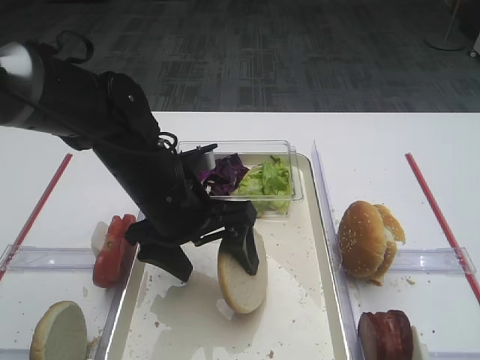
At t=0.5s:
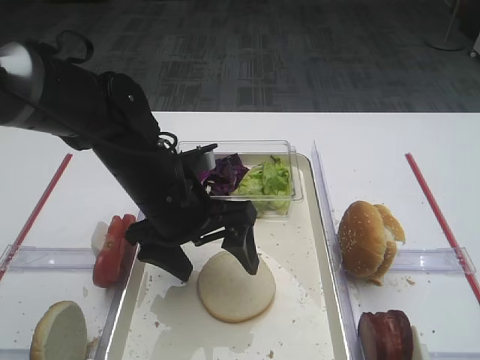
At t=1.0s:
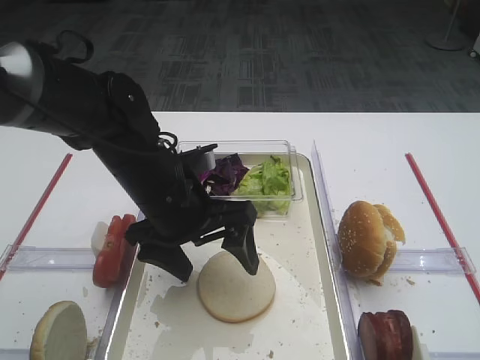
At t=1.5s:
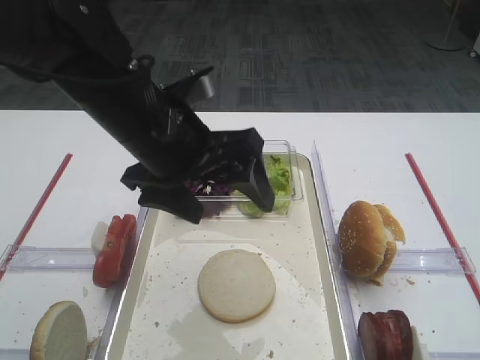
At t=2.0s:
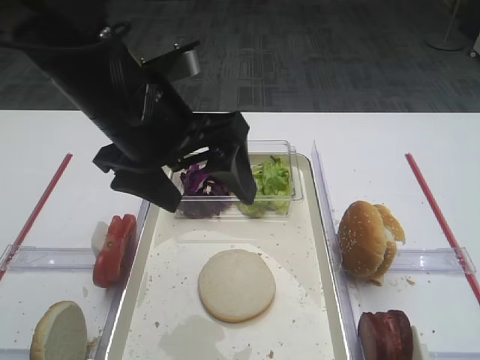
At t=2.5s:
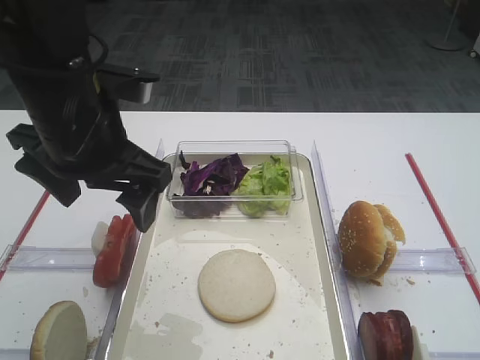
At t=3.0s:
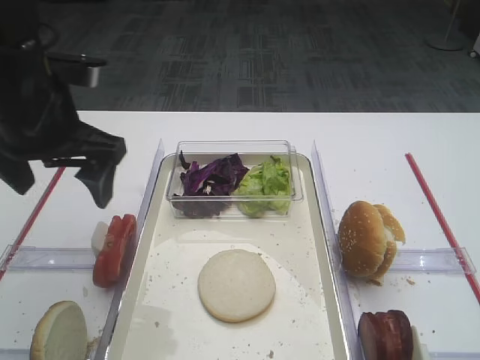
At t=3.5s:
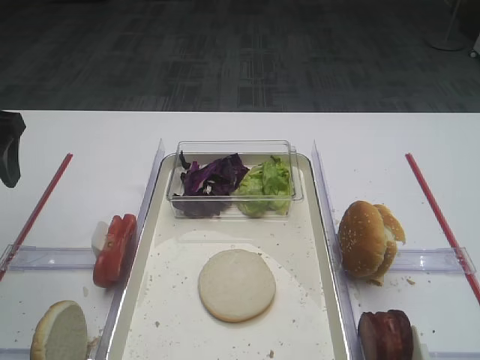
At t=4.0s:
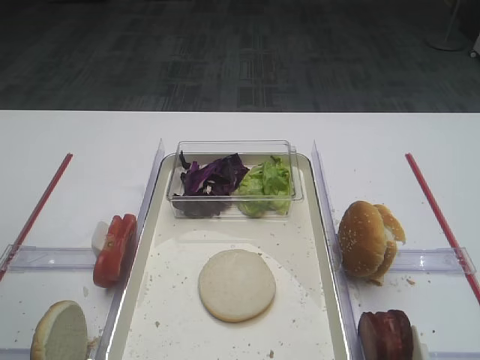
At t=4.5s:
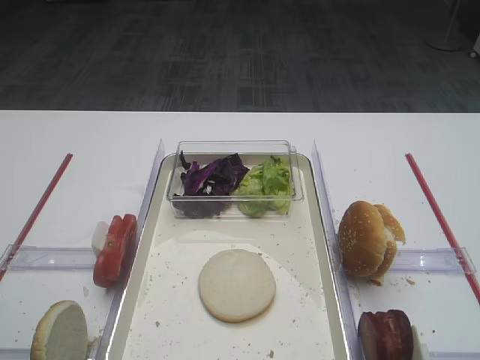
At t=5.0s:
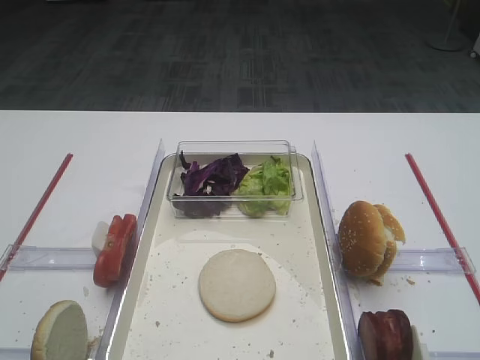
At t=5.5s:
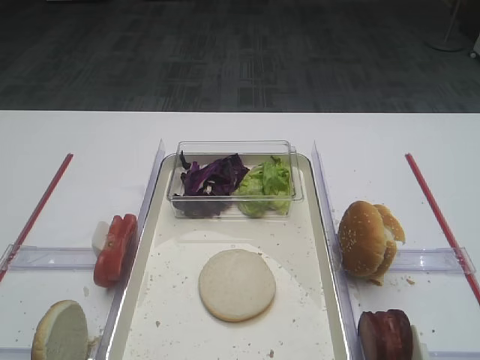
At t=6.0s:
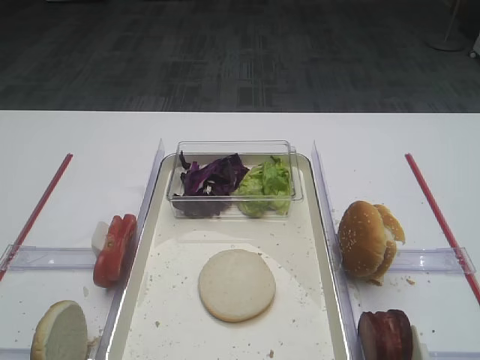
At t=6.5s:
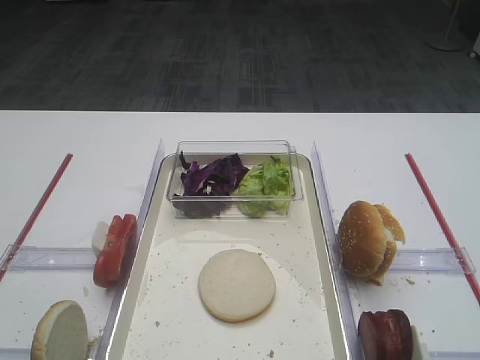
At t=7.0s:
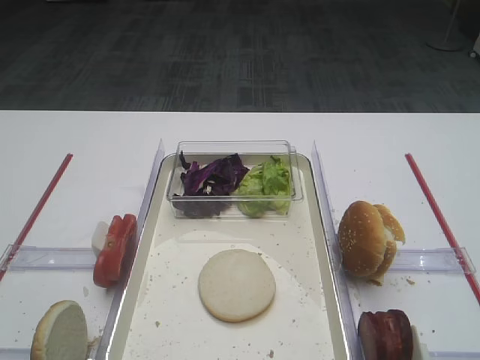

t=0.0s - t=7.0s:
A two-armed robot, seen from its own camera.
t=0.0s - t=2.0s: The left gripper is displaced upward by roughly 10 cm.
t=2.0s - t=3.5s: The left gripper moves to the left, roughly 20 cm.
t=3.5s - t=5.0s: The left gripper is displaced backward by some 25 cm.

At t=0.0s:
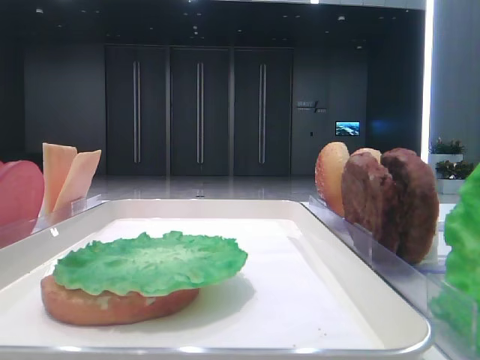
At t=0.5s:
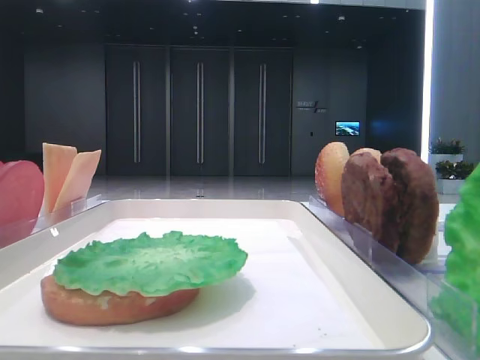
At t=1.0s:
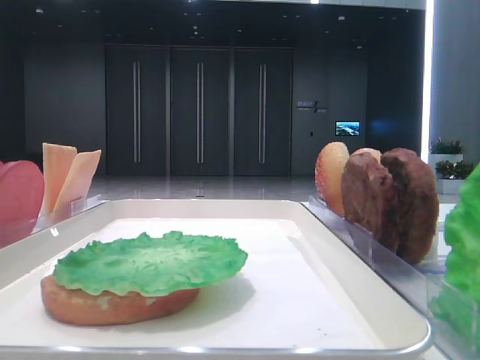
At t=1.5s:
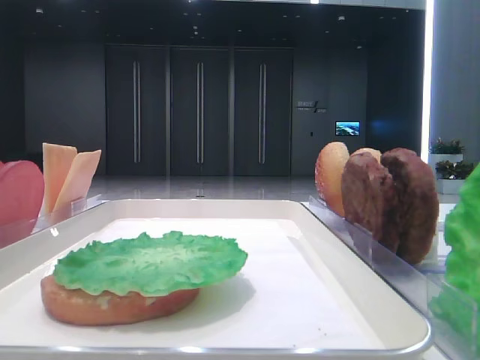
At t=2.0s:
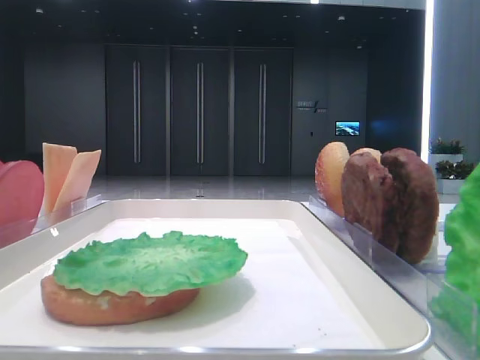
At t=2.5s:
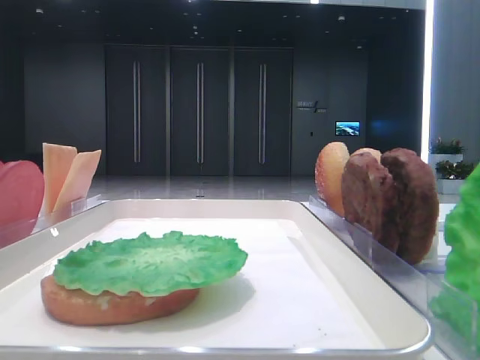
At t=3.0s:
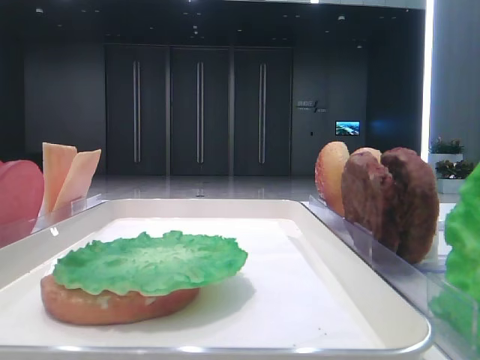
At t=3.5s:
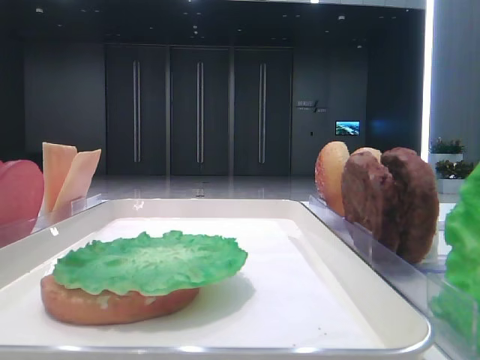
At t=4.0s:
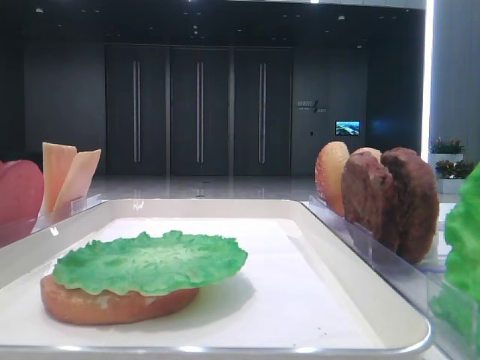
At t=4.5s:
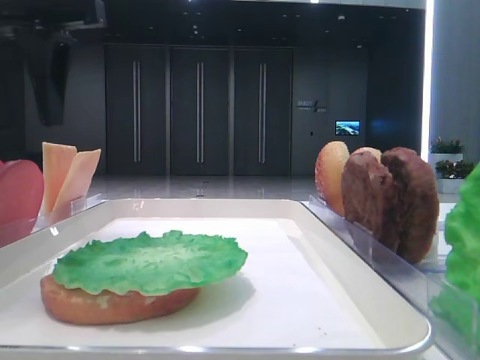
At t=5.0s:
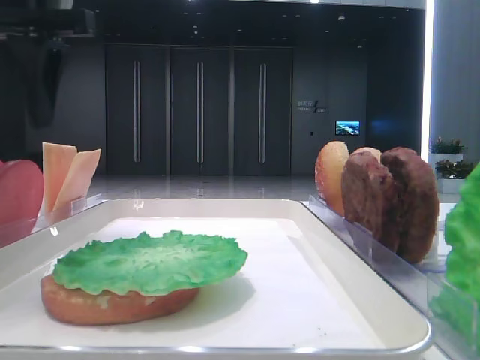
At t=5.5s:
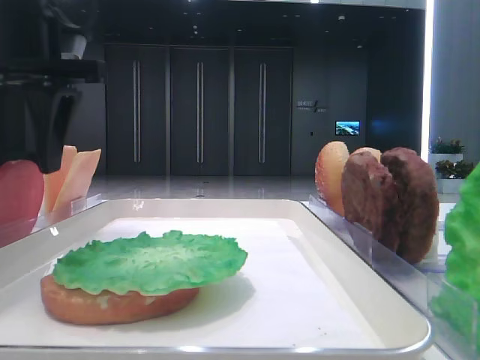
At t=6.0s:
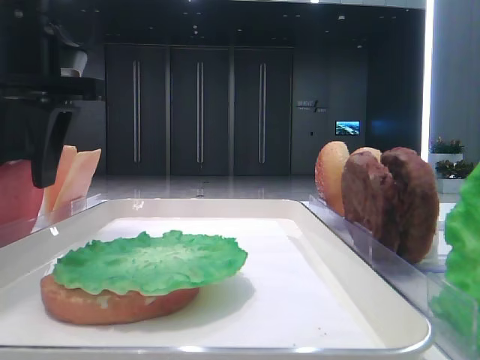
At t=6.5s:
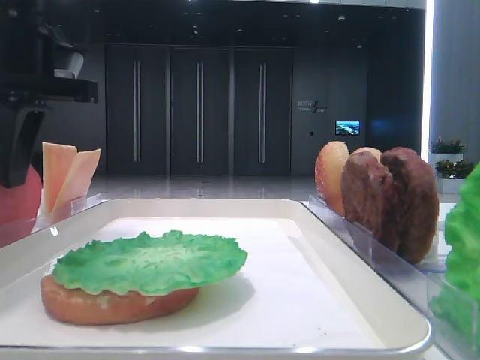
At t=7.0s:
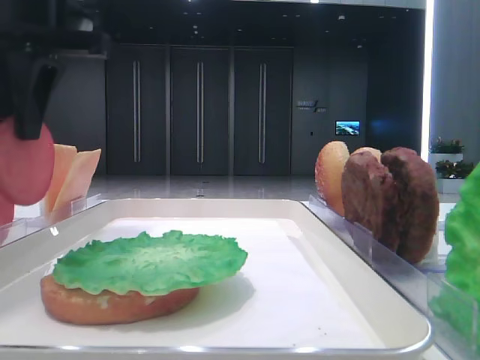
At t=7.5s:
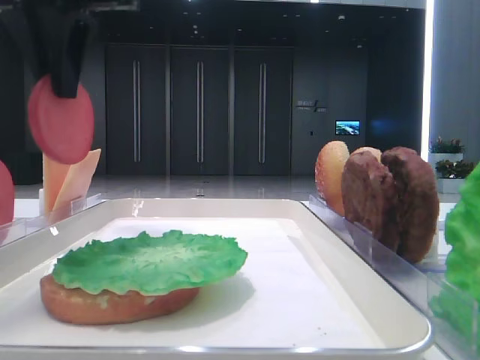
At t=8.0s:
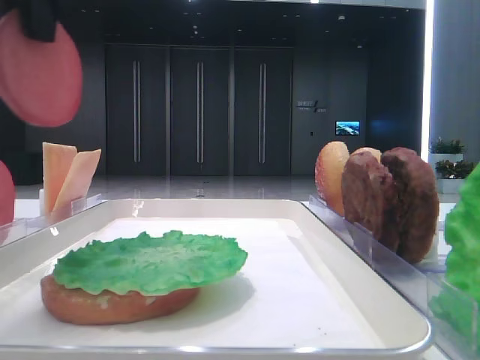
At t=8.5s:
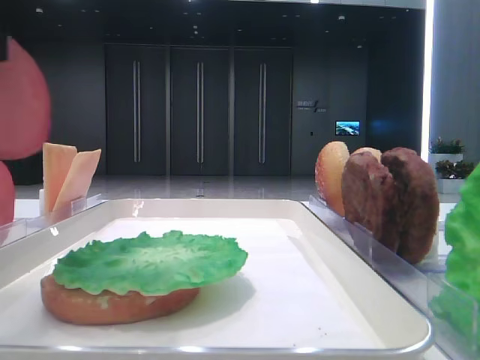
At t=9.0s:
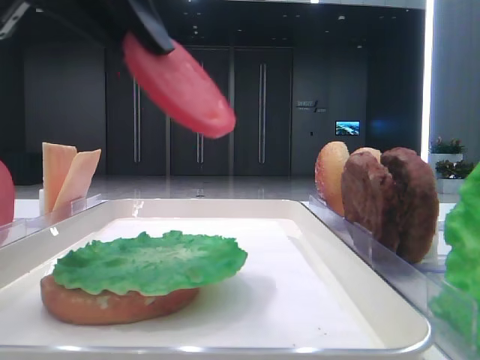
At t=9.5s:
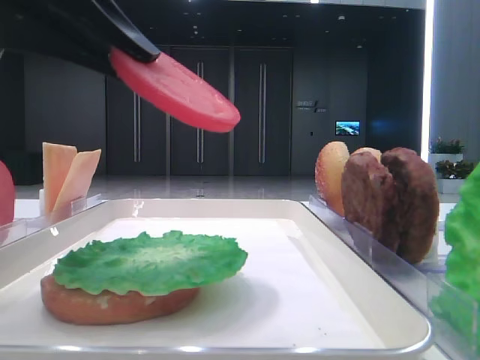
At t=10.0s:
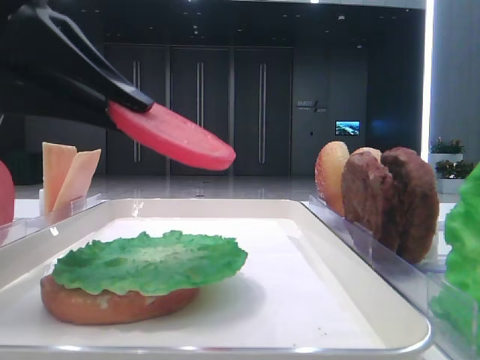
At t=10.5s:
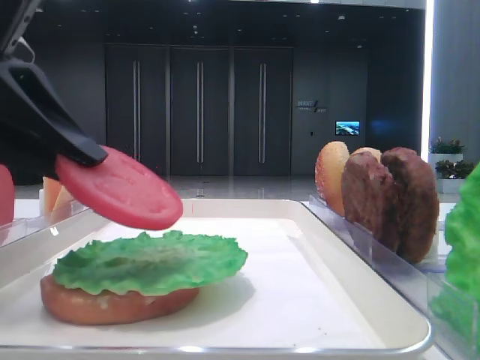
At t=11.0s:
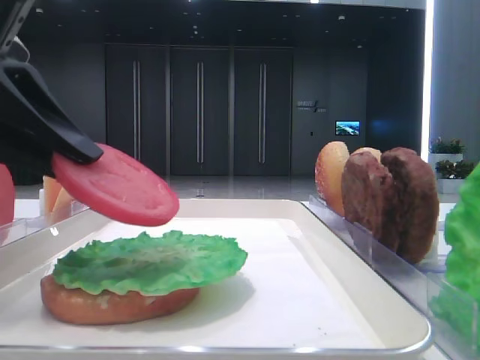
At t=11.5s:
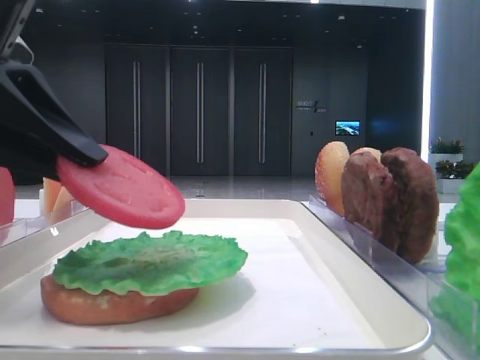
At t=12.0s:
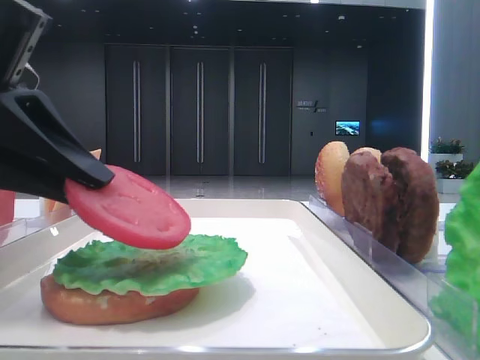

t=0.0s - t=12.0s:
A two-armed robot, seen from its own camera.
Step, t=0.0s - t=6.5s: Pick up the tomato slice with the left hand.
t=4.0s - t=6.0s: The left gripper travels downward and to the right by approximately 15 cm.
t=6.0s - t=8.0s: The left gripper goes roughly 10 cm upward and backward, and closes up.
t=8.0s - t=10.0s: The left gripper moves downward, about 15 cm.
t=10.0s - t=12.0s: The grippers make only small movements.

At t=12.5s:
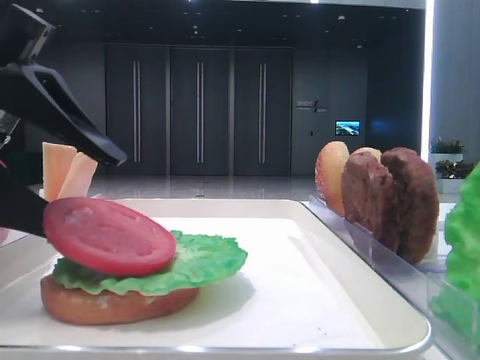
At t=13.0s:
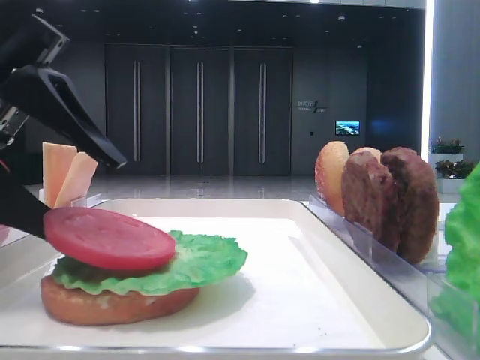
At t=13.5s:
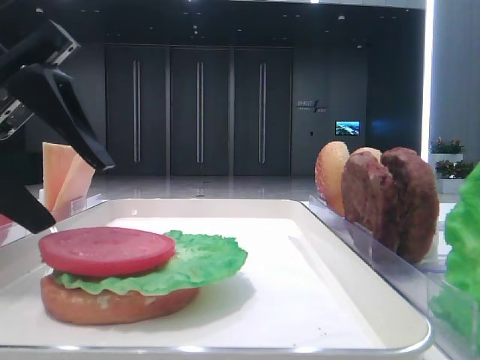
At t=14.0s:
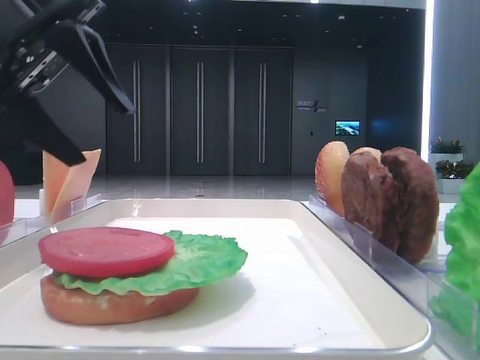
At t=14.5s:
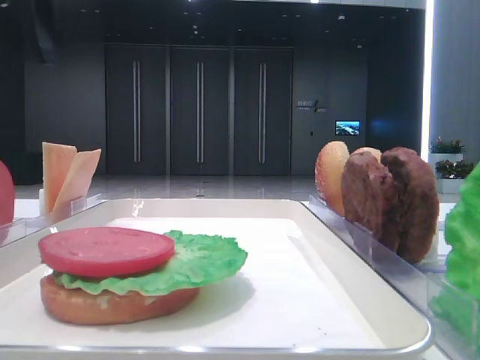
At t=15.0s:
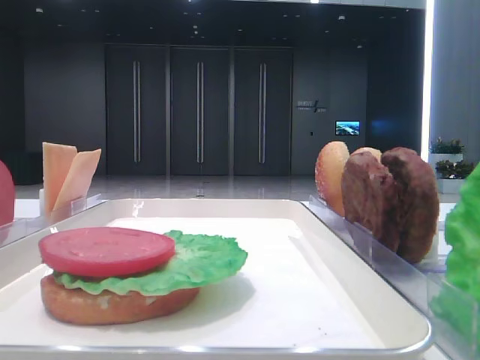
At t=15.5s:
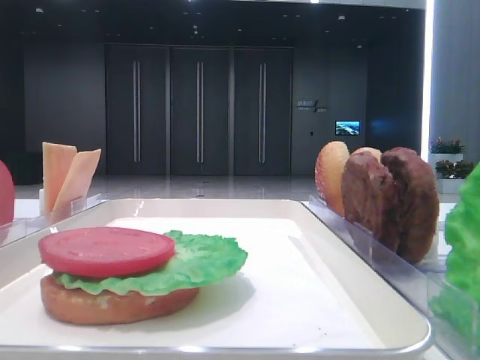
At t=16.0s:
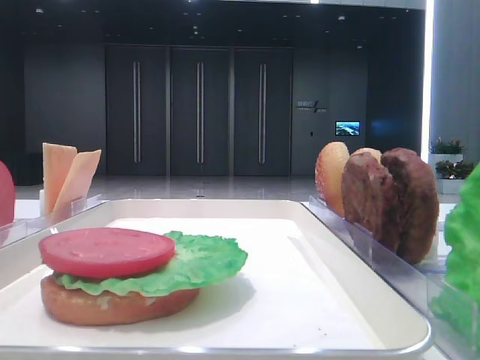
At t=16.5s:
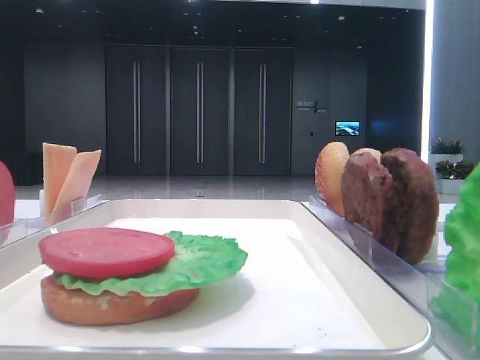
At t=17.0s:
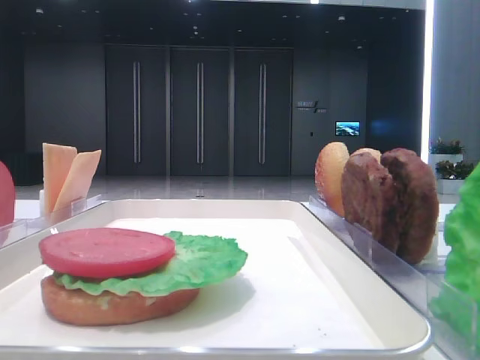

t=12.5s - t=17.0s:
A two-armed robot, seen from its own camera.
t=12.5s - t=14.5s: The left gripper shifts approximately 20 cm upward and forward.
t=14.5s - t=17.0s: The left gripper heads backward, covering some 35 cm.

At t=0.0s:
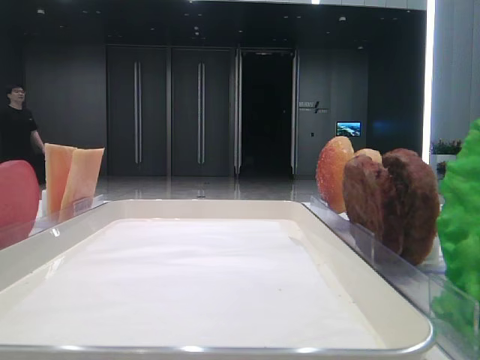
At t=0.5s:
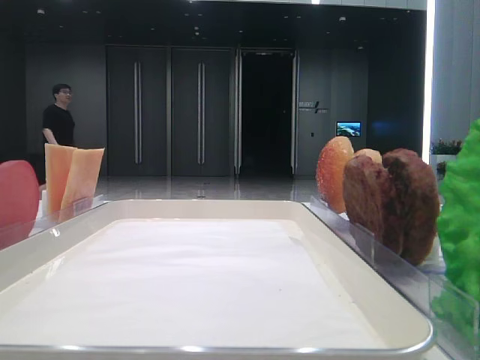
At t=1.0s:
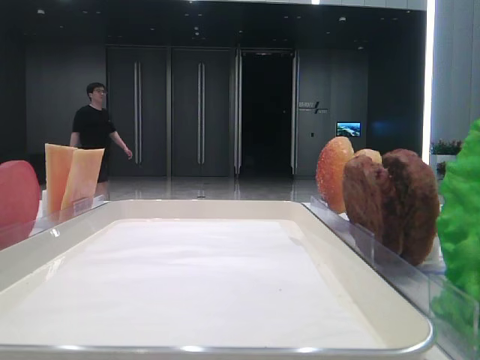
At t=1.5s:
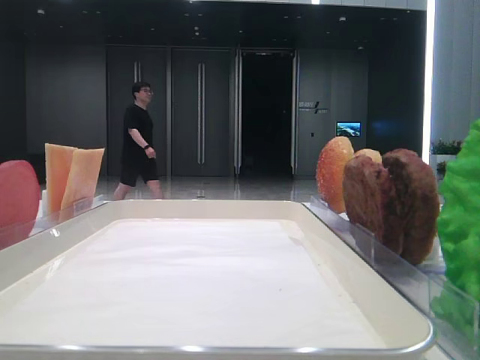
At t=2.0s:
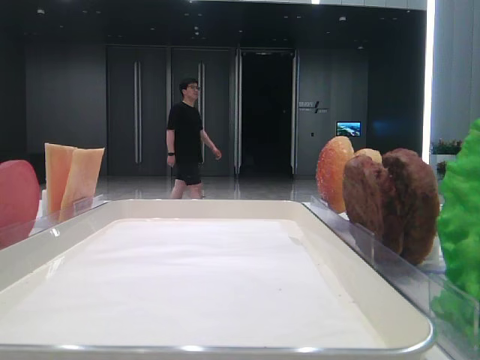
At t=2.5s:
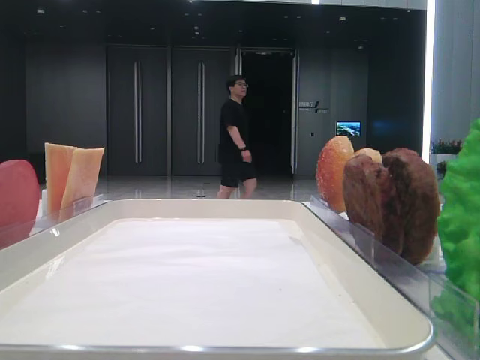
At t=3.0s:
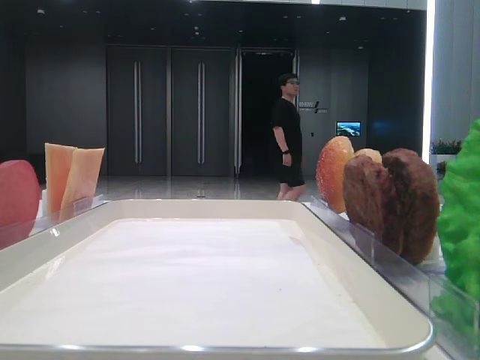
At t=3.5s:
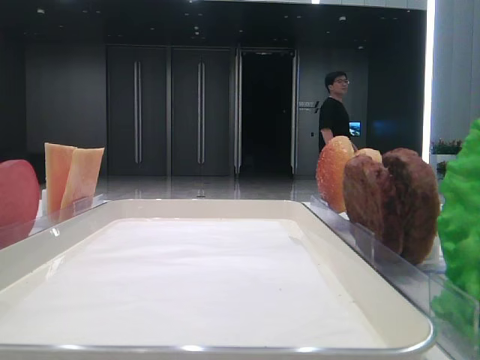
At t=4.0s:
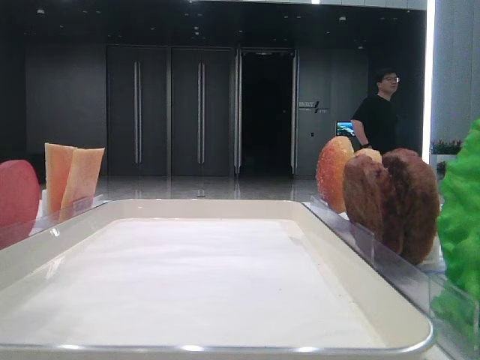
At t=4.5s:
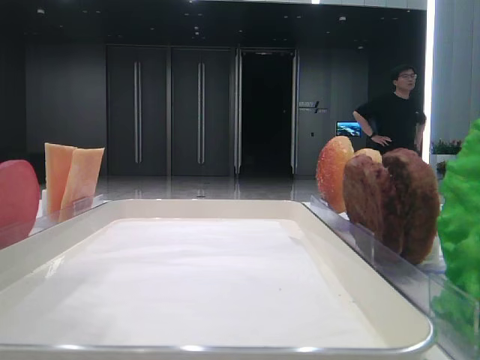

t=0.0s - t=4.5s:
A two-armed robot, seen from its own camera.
t=2.0s - t=4.5s: The left gripper goes approximately 15 cm to the right and forward.
